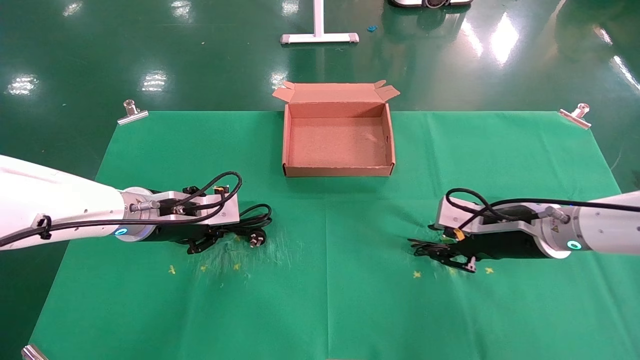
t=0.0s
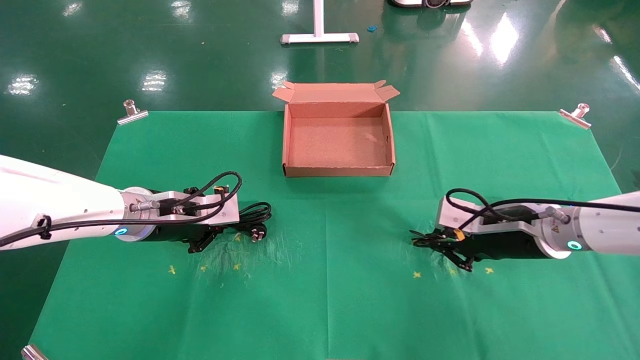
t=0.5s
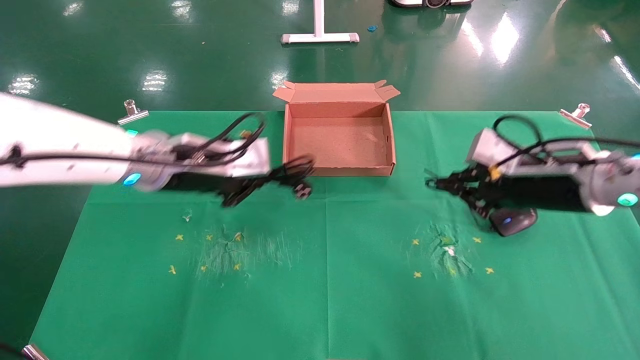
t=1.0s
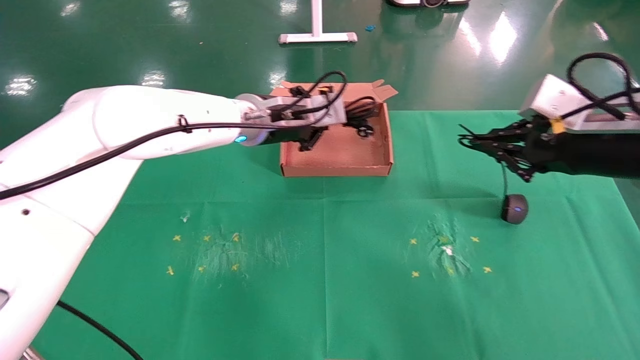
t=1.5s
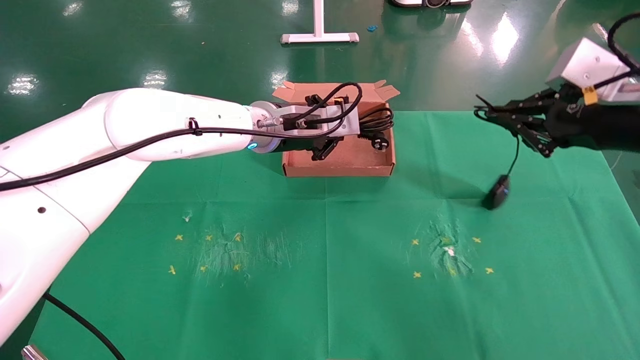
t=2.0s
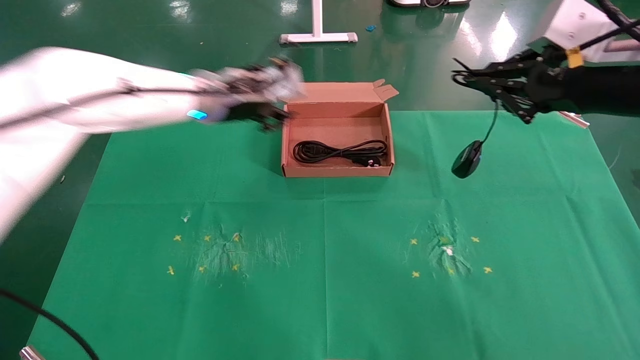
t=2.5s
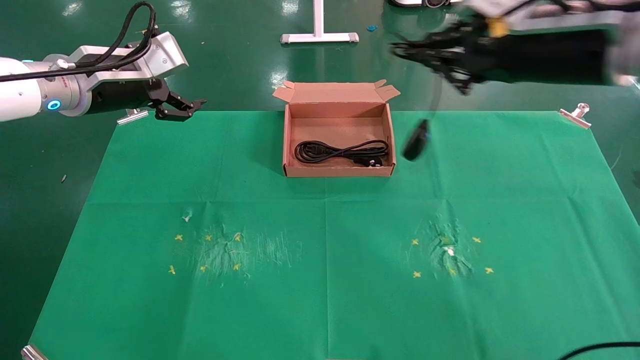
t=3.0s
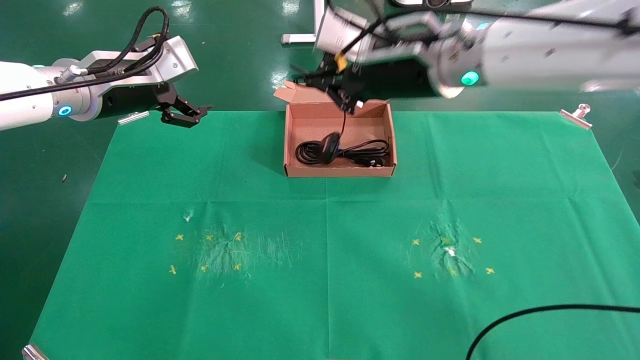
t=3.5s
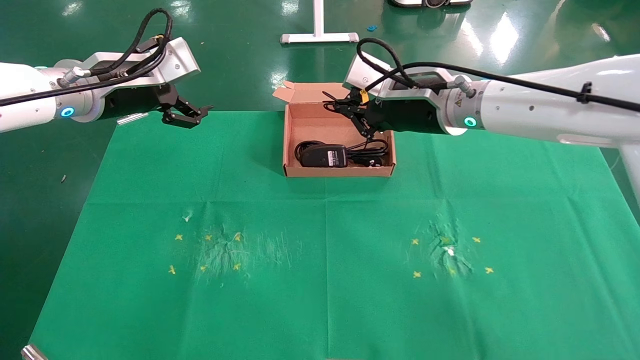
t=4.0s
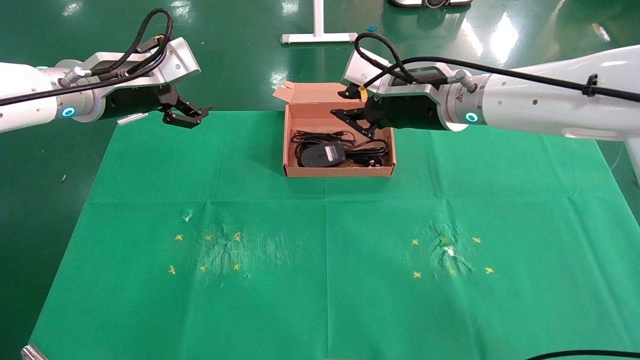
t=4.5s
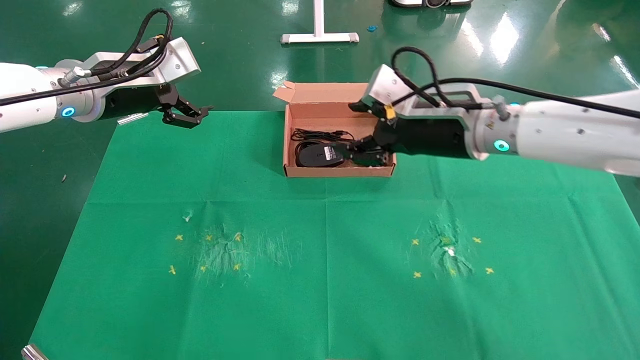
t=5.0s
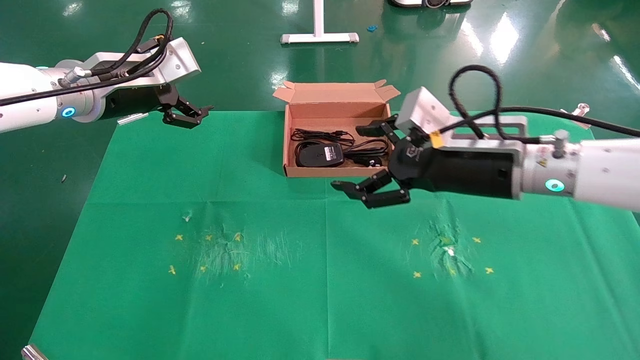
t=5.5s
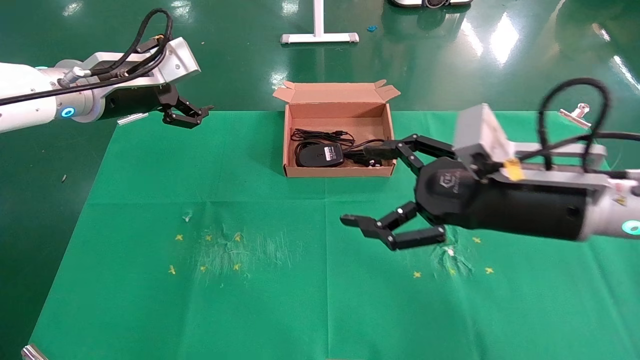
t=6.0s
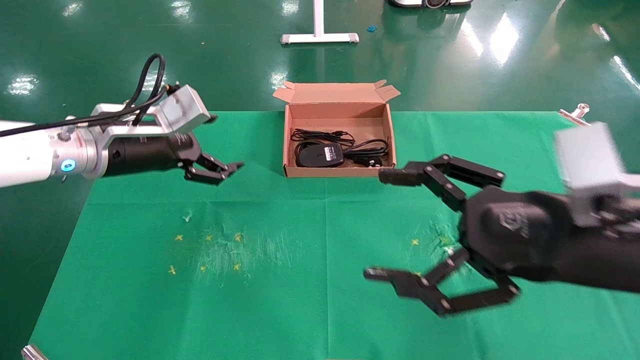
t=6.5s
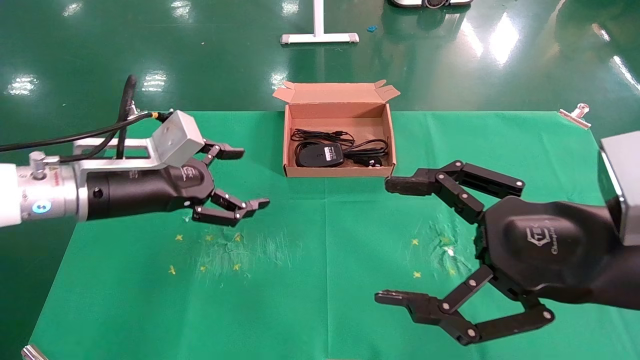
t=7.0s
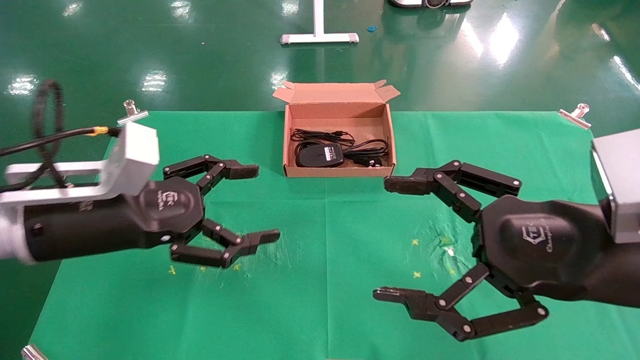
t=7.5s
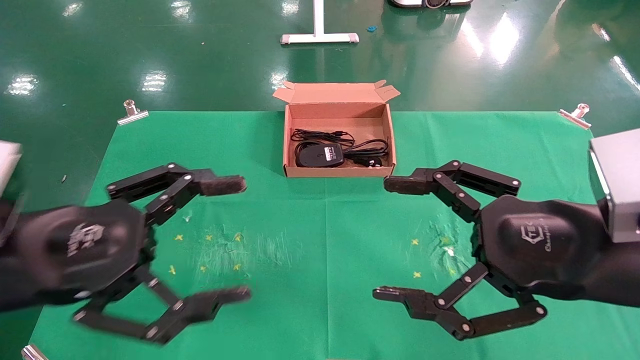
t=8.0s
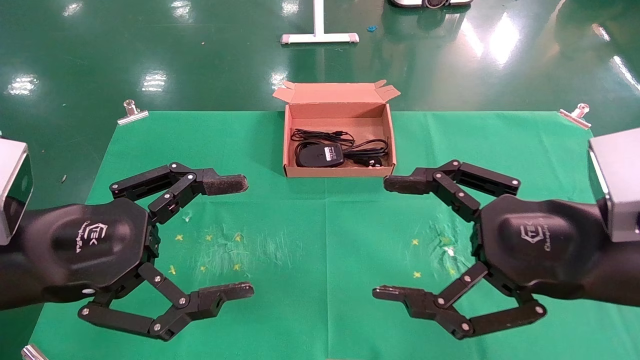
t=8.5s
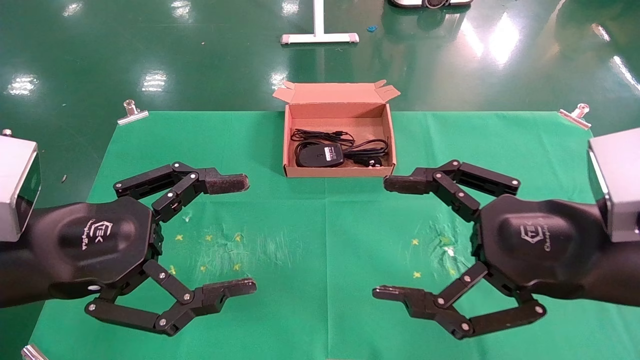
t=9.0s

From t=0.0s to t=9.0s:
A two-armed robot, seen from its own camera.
Task of the whole recording: grasp data cable left put into box grasp mouse right put into box.
Step, from t=1.0s to t=4.5s: Place the mouse and power cord into the box.
From t=0.0s to t=2.0s: The right gripper is displaced upward and backward by about 20 cm, and closes its fingers. The left gripper goes approximately 20 cm to the right, upward and forward.
From t=2.0s to t=4.5s: The right gripper shifts roughly 25 cm to the left and forward, while the left gripper travels to the left by approximately 20 cm, and opens up.
From t=4.5s to t=7.0s: The right gripper is displaced backward and to the right by some 25 cm, and opens; the left gripper heads downward and backward, covering approximately 15 cm.
From t=7.0s to t=9.0s: The left gripper heads backward, covering approximately 15 cm.

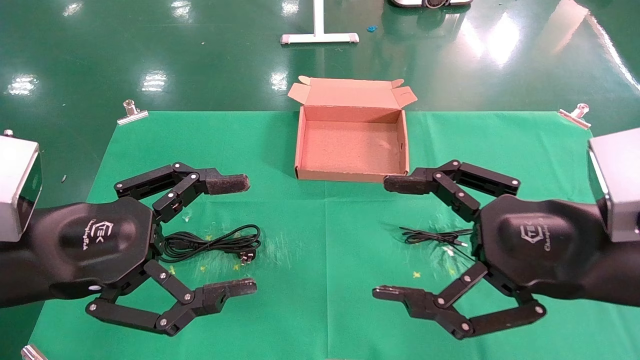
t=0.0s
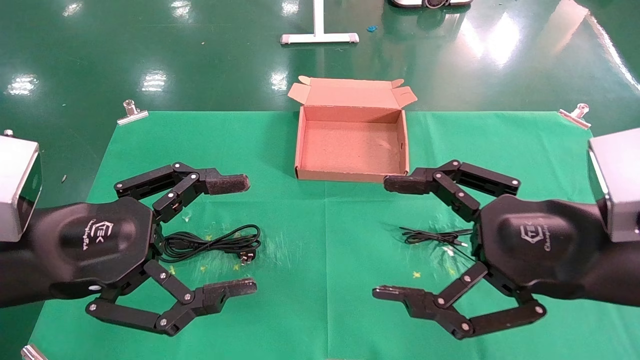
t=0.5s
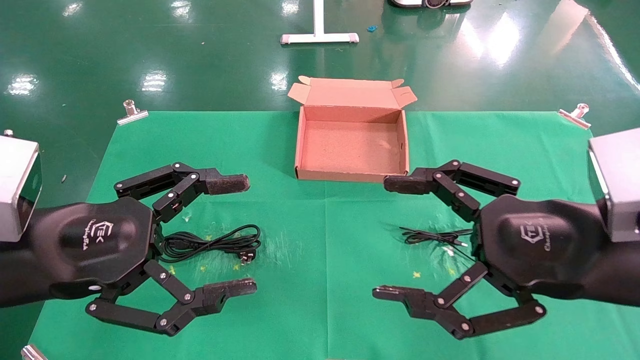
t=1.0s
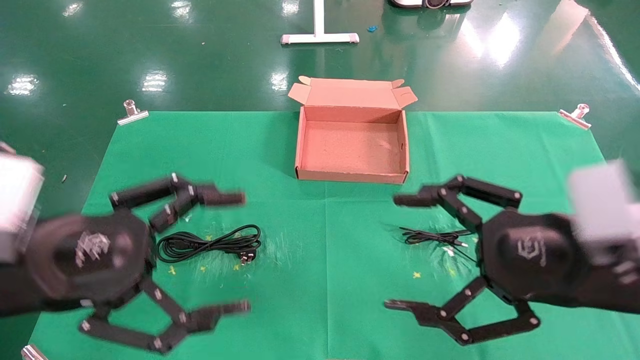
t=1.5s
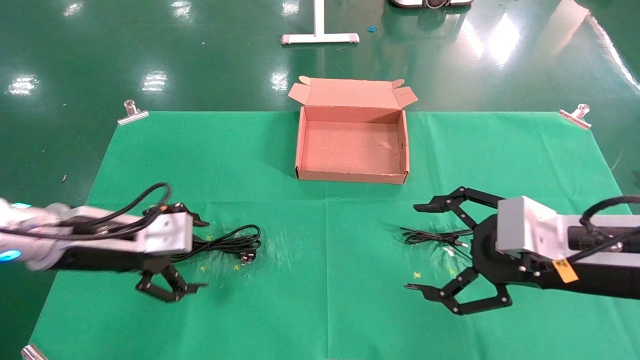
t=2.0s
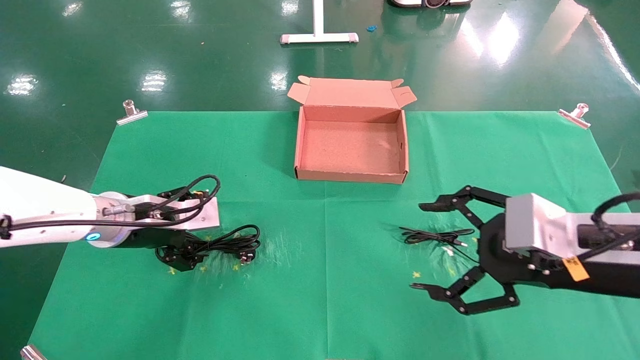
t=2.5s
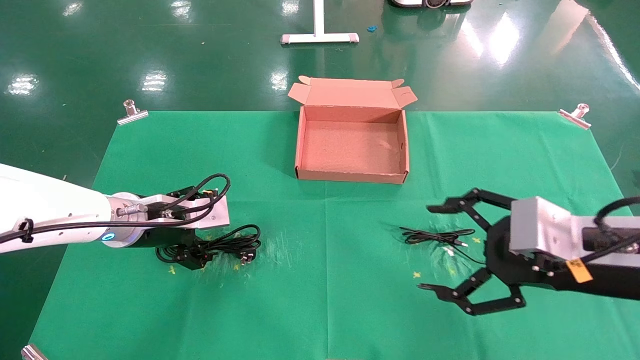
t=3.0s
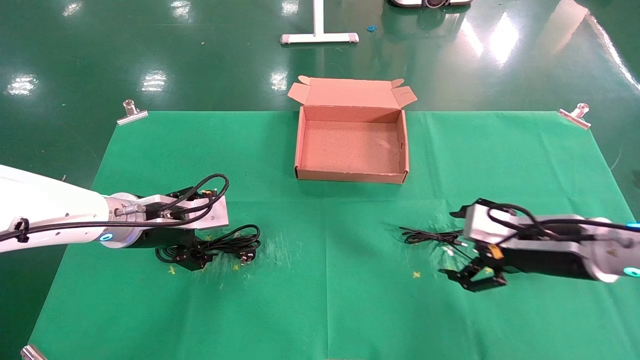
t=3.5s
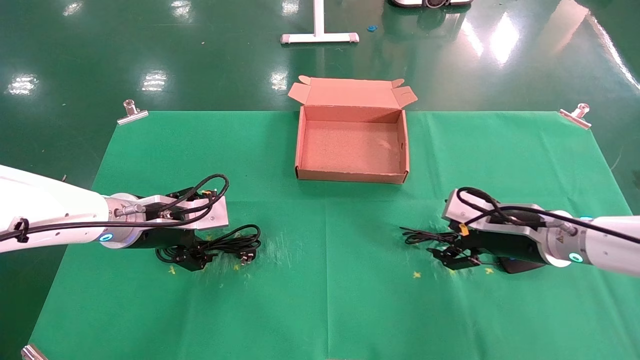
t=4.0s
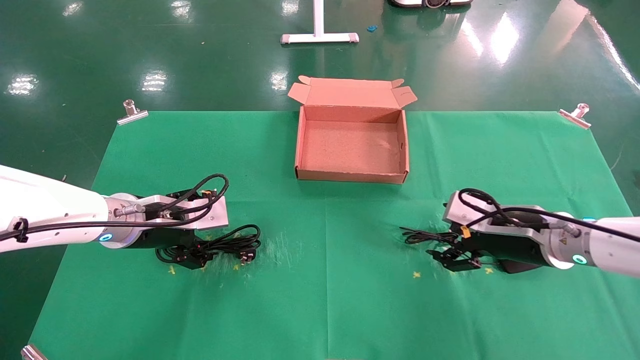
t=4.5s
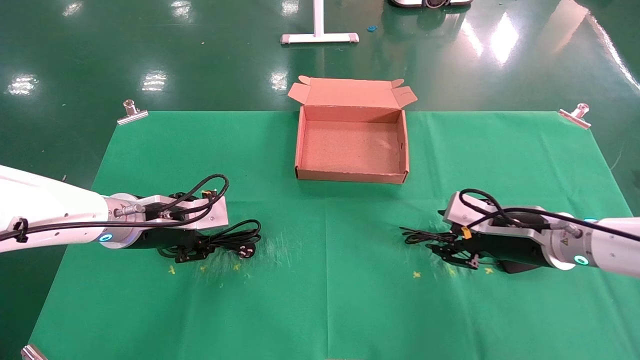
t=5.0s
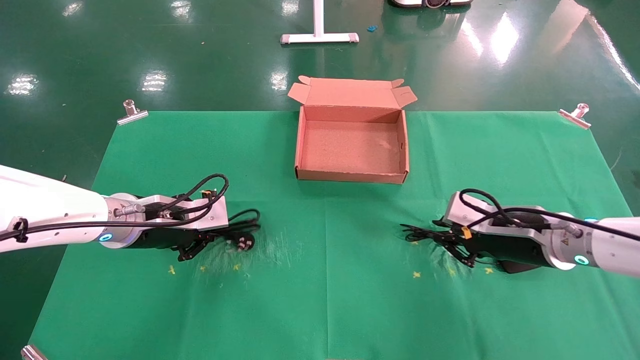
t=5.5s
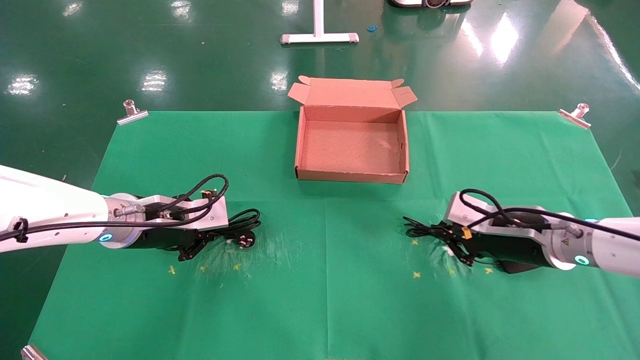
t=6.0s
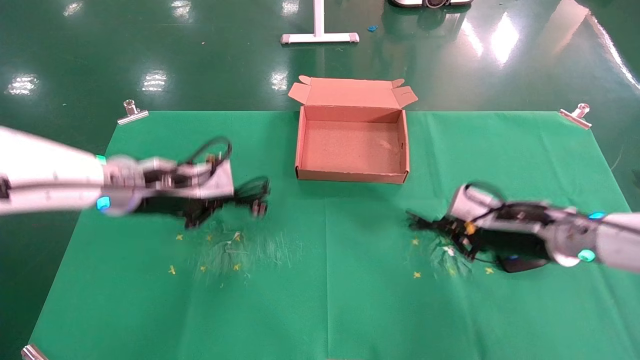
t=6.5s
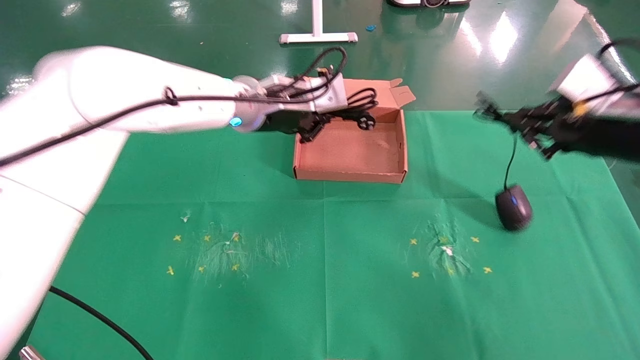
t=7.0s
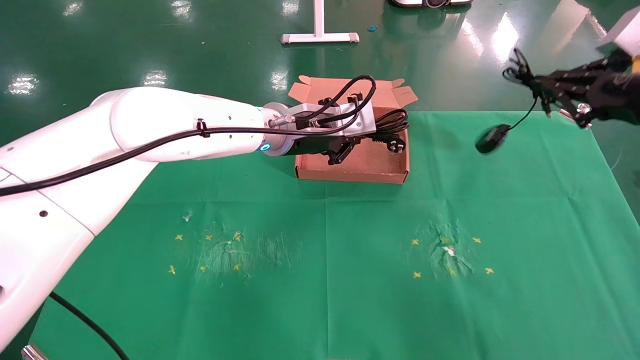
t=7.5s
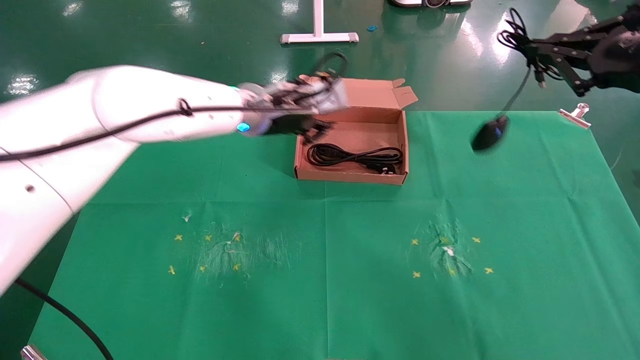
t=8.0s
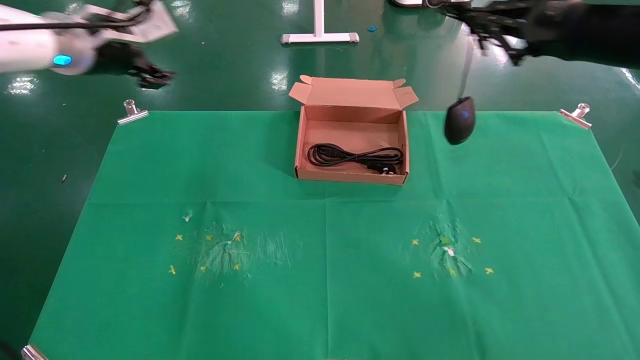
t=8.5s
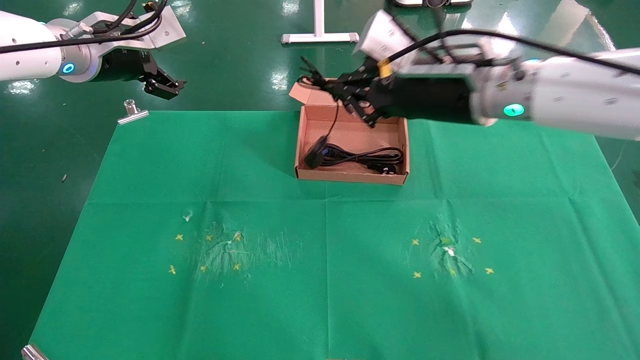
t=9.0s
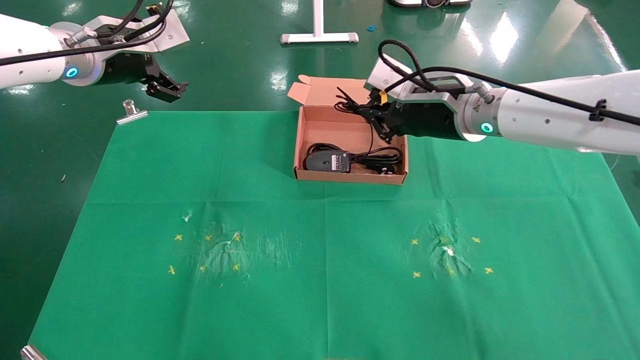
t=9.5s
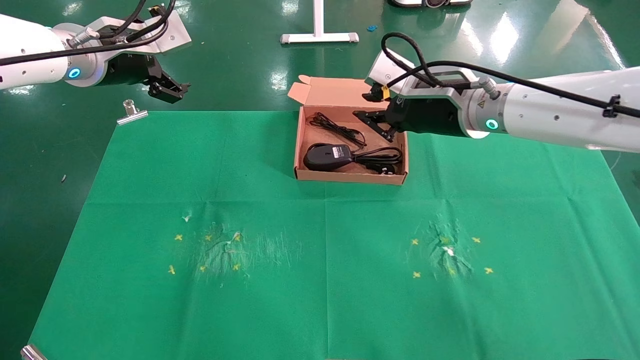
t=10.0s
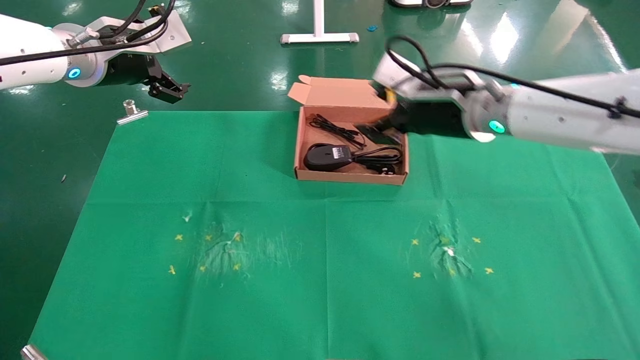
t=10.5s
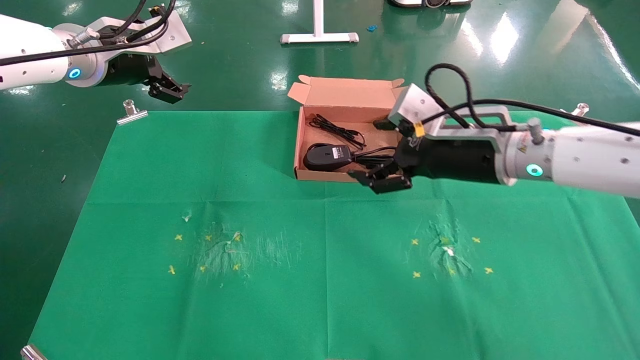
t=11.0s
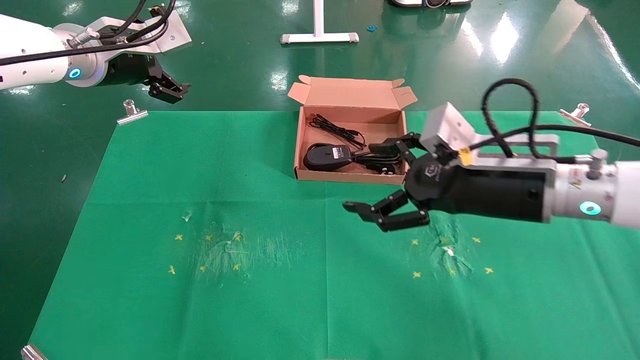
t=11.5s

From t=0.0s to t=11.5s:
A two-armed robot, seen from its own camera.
Task of the whole recording: grasp data cable left put into box grasp mouse right put into box.
Step, from t=1.5s to t=6.0s: Simultaneously pick up the mouse and power cord from the accessory packaging area.
Step, from t=6.5s to t=9.5s: Place the mouse and power cord into the box.
From t=0.0s to t=2.0s: The left gripper shifts roughly 15 cm forward and downward. Meanwhile the right gripper shifts by about 5 cm.
From t=2.0s to t=4.0s: The right gripper heads forward and downward, covering about 15 cm, while the left gripper shifts roughly 5 cm forward.
From t=4.0s to t=6.0s: The right gripper closes; the left gripper closes its fingers.
From t=6.0s to t=7.5s: The left gripper is displaced to the right and upward by about 25 cm. Meanwhile the right gripper heads upward and to the right, covering approximately 20 cm.
From t=7.5s to t=9.5s: The right gripper travels to the left and forward by some 25 cm; the left gripper shifts about 25 cm to the left and upward, and opens its fingers.
From t=9.5s to t=11.5s: The right gripper heads backward and downward, covering about 10 cm, and opens its fingers.
